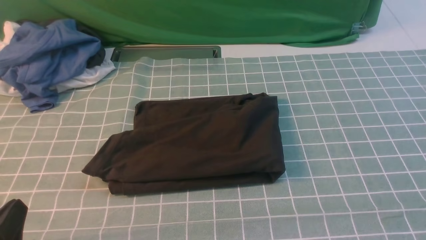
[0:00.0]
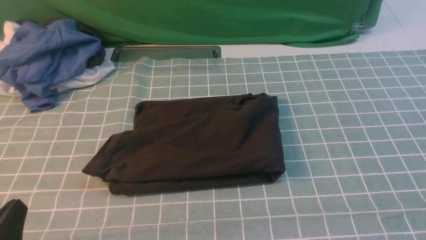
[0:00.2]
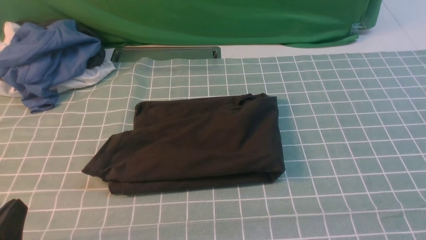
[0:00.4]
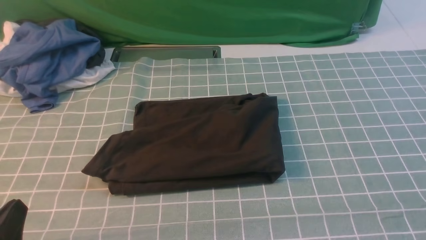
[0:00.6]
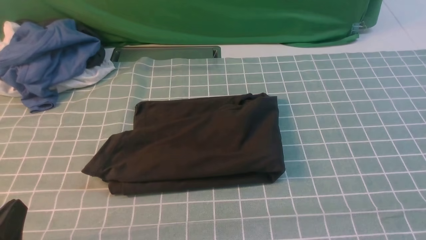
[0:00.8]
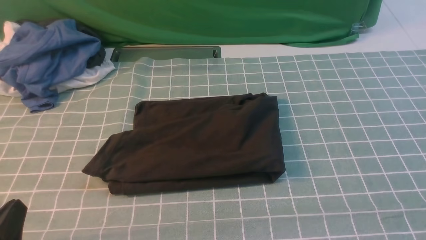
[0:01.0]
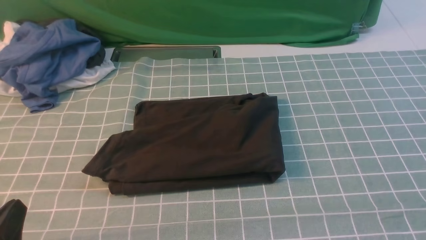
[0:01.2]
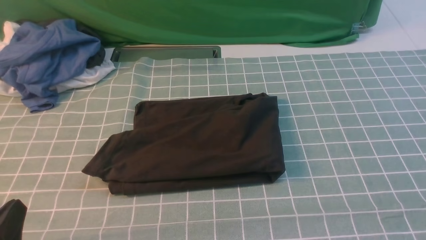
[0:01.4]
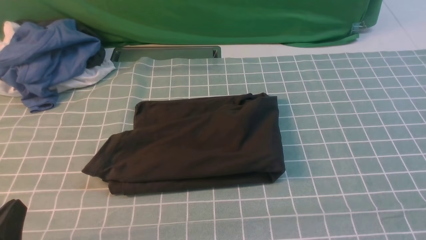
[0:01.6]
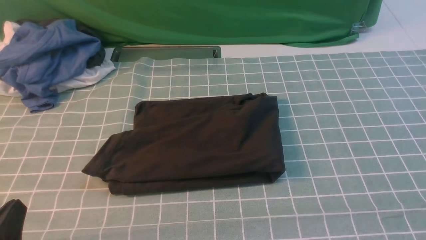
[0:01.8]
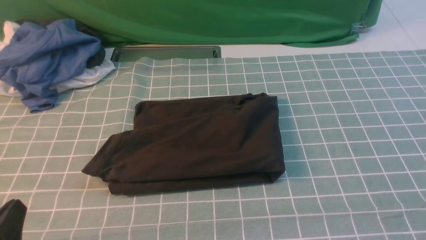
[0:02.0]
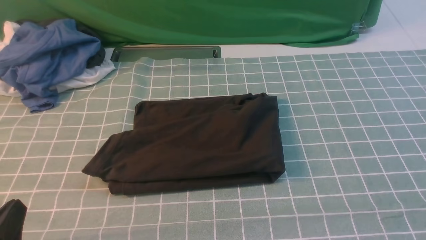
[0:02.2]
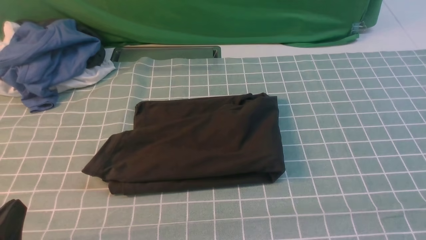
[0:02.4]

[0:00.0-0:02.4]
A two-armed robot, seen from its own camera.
1.2 to 2.4 s: Both grippers stay about where they are.

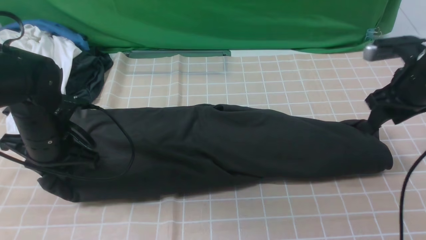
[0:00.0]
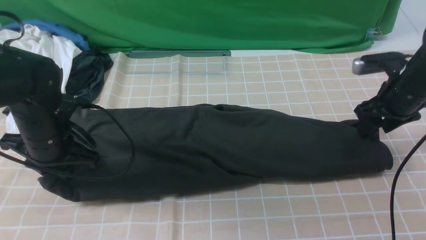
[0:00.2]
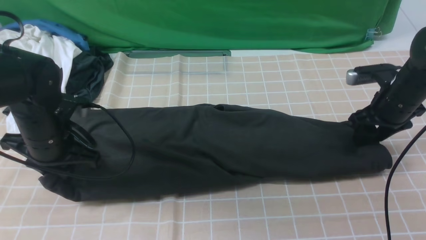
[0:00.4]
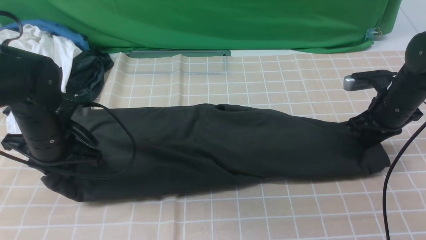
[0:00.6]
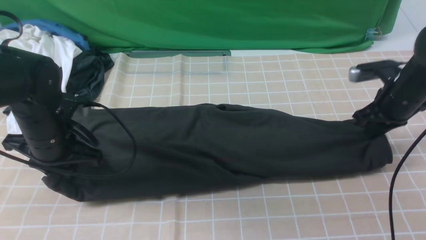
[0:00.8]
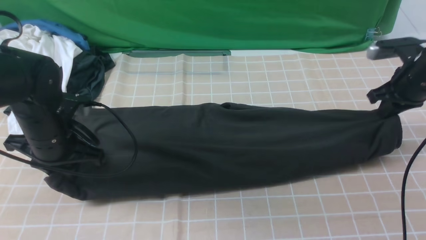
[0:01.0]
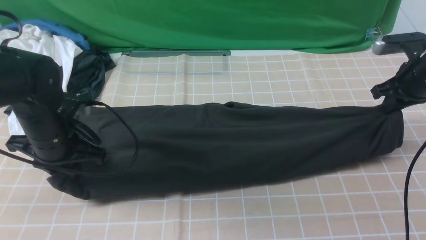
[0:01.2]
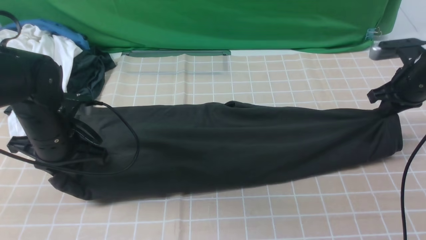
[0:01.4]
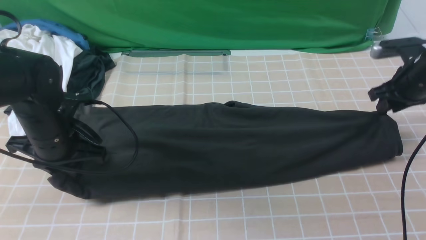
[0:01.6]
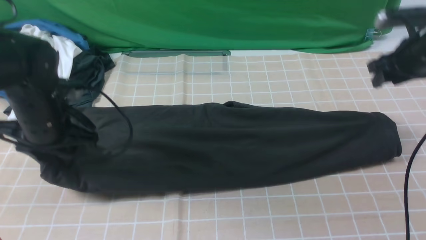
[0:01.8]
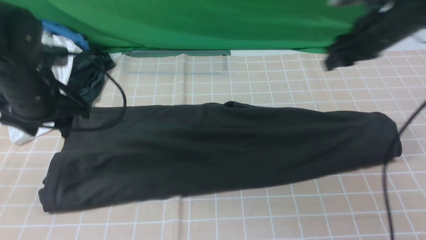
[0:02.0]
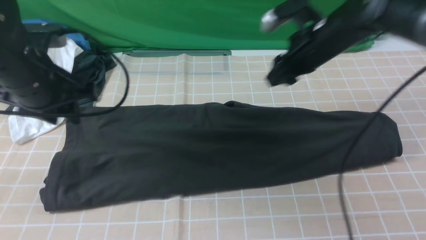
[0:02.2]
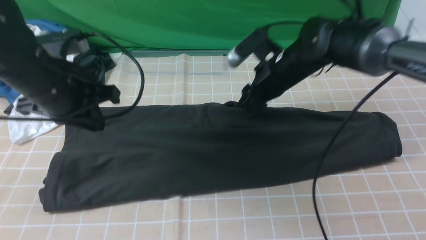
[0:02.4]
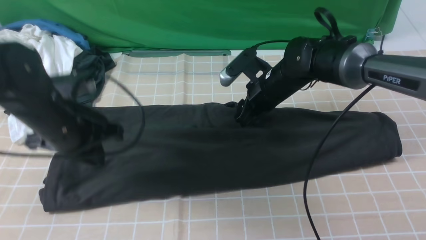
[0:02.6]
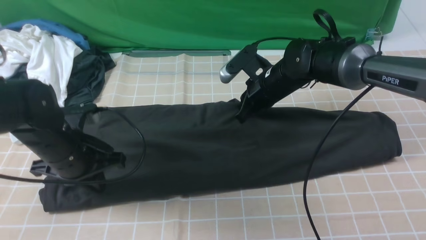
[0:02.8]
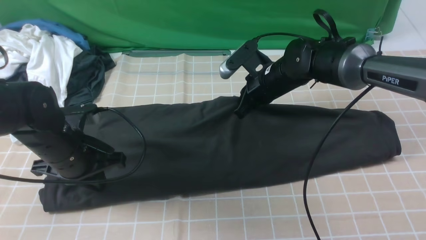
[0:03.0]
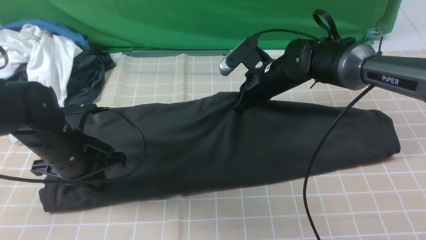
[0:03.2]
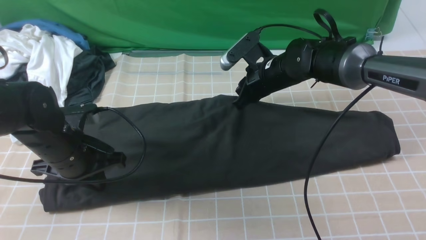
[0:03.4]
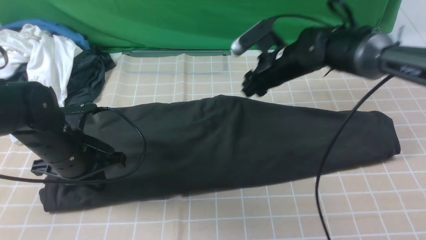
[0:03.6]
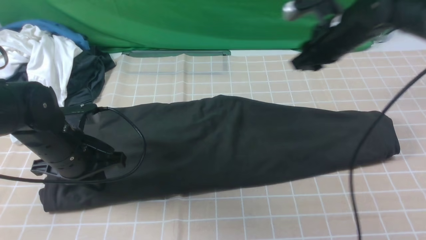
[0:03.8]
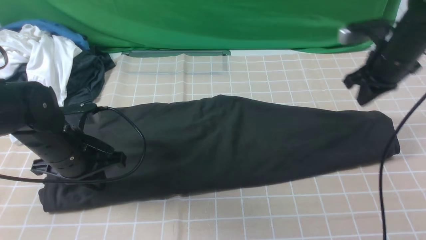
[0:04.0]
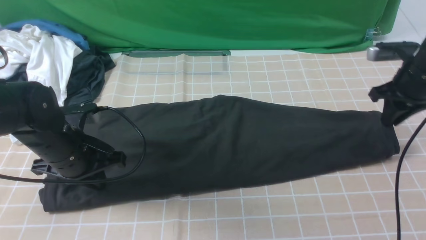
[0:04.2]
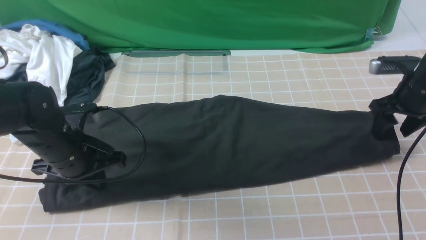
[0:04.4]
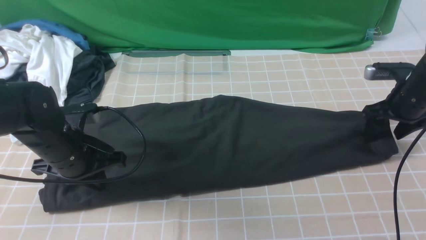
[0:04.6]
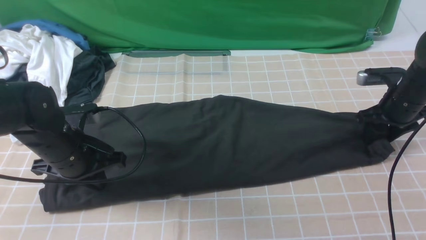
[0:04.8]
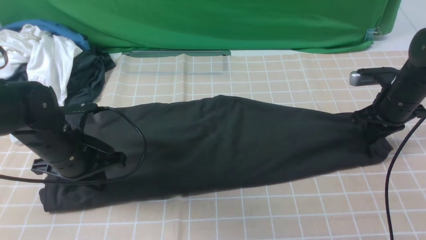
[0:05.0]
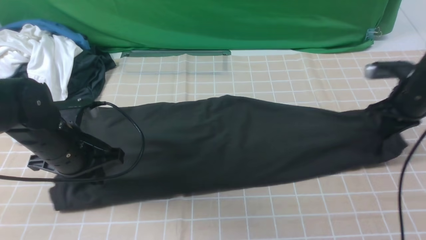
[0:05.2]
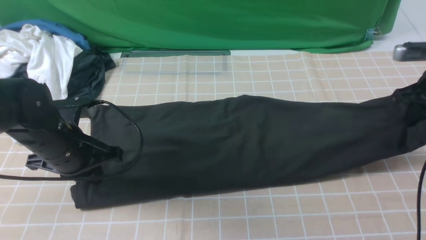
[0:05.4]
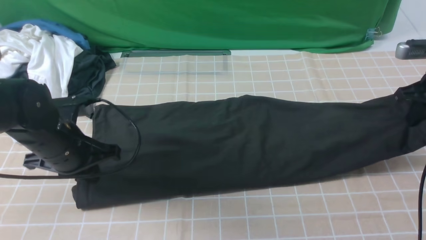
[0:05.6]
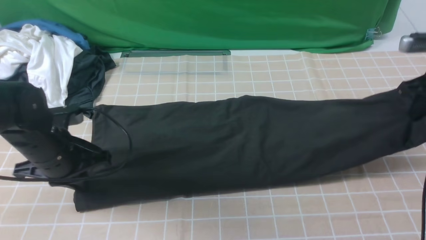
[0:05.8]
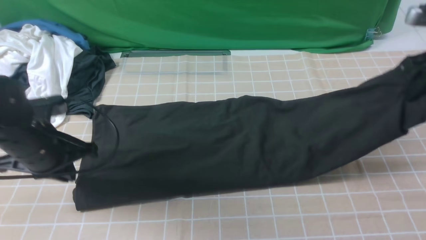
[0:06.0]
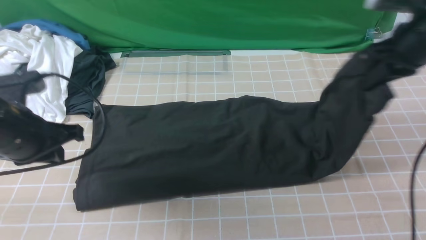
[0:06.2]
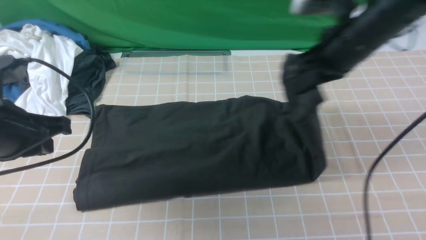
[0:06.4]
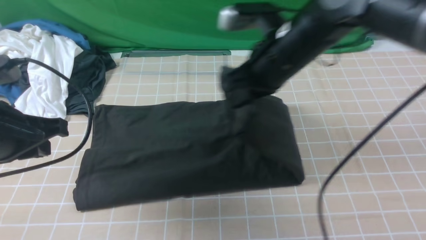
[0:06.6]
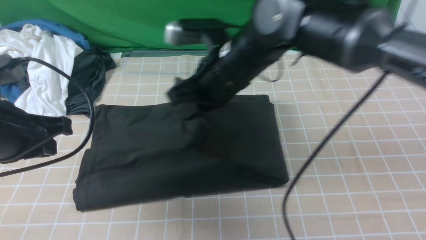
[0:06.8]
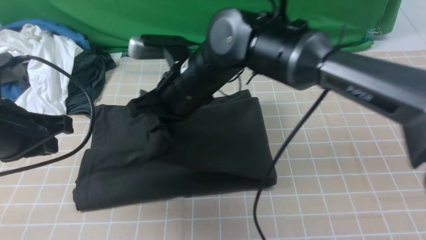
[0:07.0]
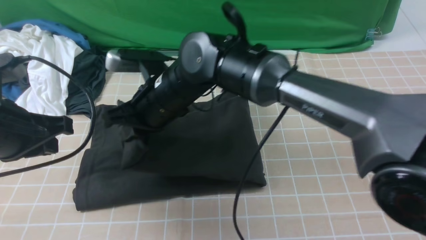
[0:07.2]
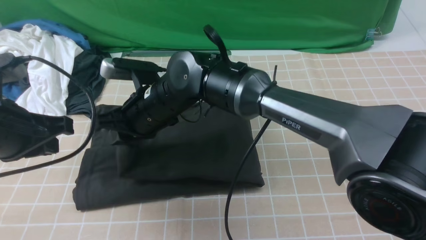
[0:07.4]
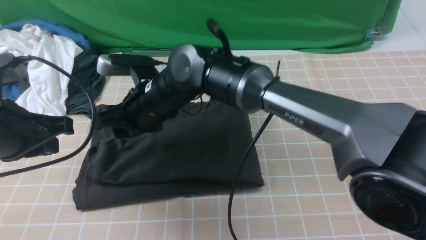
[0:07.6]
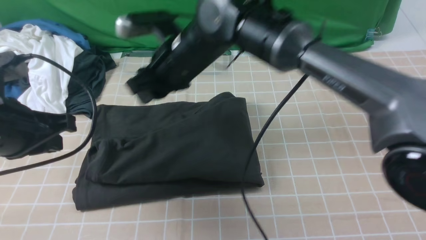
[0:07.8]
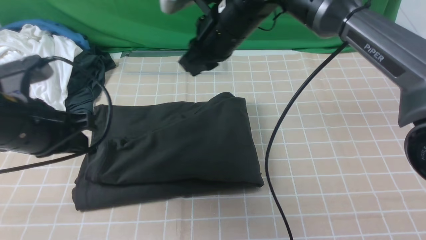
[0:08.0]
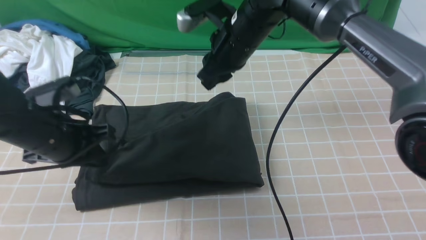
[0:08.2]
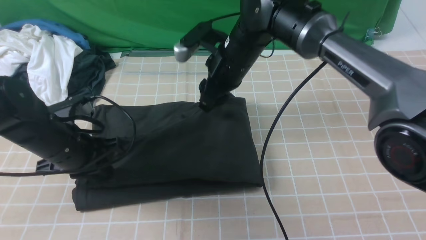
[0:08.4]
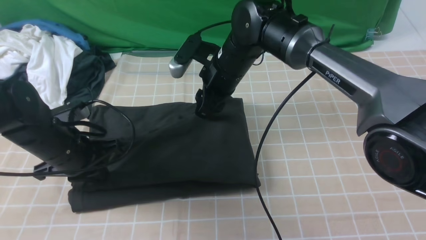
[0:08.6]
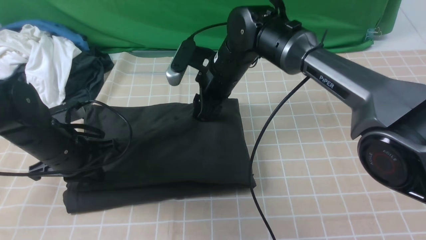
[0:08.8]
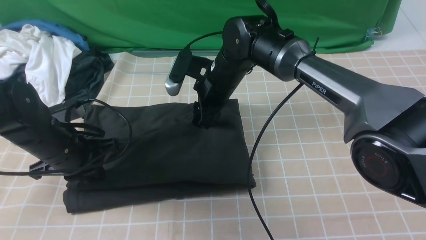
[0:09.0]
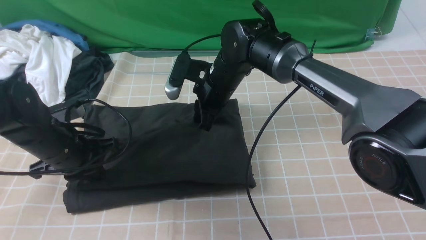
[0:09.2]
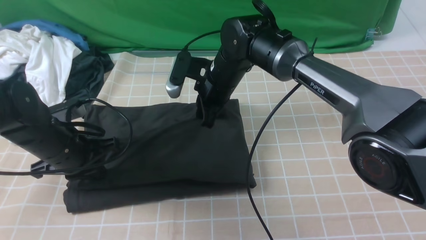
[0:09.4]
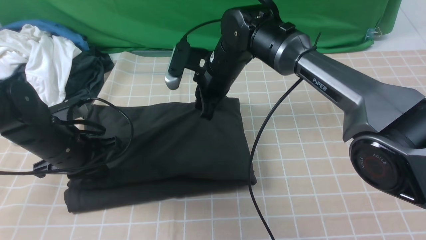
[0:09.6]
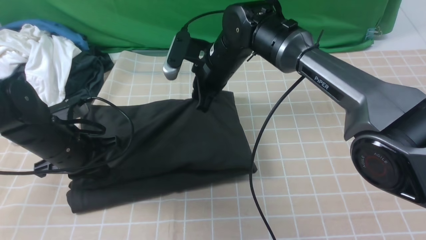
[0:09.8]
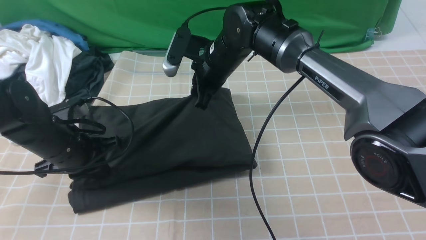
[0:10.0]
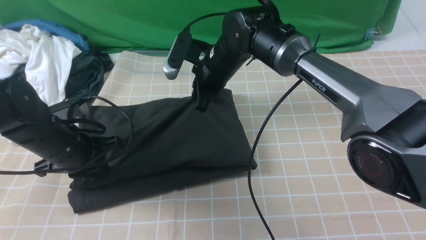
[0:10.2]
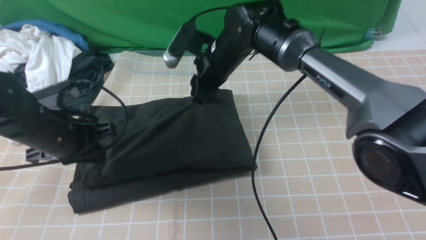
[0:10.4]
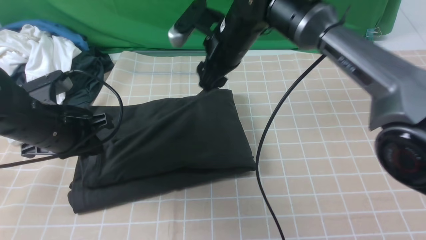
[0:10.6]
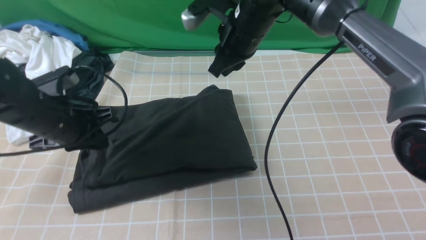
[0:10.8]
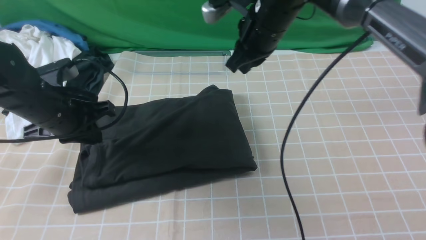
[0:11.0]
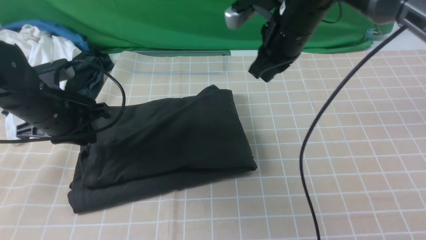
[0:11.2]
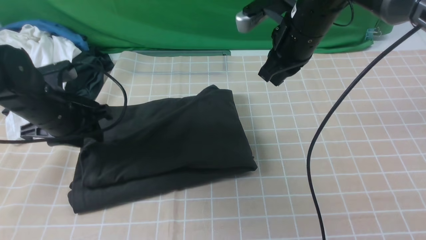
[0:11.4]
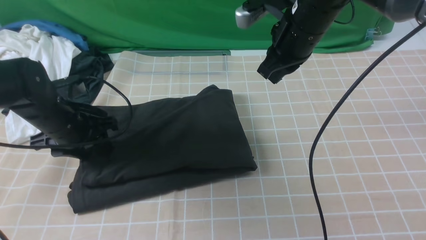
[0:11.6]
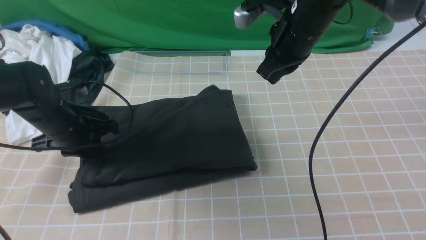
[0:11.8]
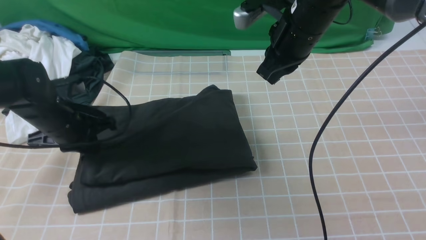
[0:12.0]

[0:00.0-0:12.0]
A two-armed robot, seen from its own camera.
Step, 0.0 to 5.0 s: use the right arm to clamp the right edge of the fabric.
Step, 5.2 to 7.6 s: use the right arm to drag the right edge of the fabric to the left and folds it over the left edge.
0.0 to 1.6 s: The right gripper travels forward by about 5 cm, and closes, then opens again.
1.6 to 3.0 s: The right gripper goes about 25 cm to the left, and closes; the left gripper reaches some 5 cm upward, then returns, and closes its fingers.
3.0 to 4.4 s: The right gripper moves to the right, about 25 cm, and opens its fingers.
4.4 to 6.0 s: The left gripper shifts by approximately 5 cm. Meanwhile the right gripper goes some 10 cm upward, and closes up.
6.0 to 7.6 s: The right gripper goes some 40 cm to the left, and opens up. The left gripper travels upward by approximately 10 cm.
7.6 to 9.0 s: The right gripper heads to the right and forward, covering roughly 10 cm. The left gripper shifts approximately 15 cm downward and forward.
9.0 to 10.4 s: The right gripper closes, then opens again.
10.4 to 12.0 s: The right gripper is displaced to the right and upward by some 10 cm, and closes; the left gripper opens, then closes again.

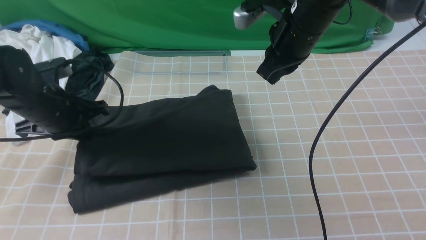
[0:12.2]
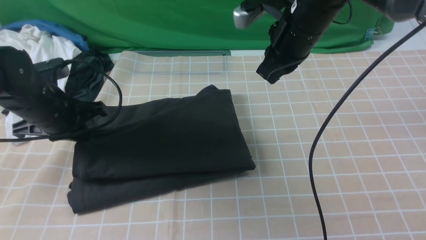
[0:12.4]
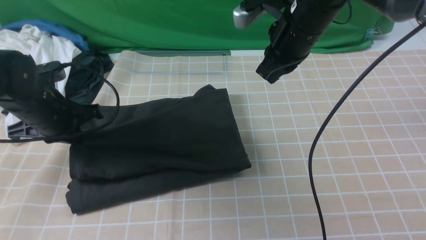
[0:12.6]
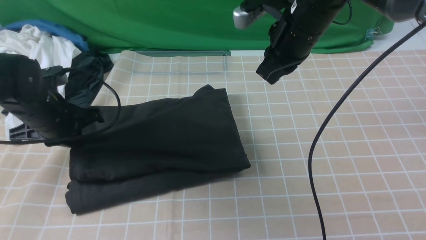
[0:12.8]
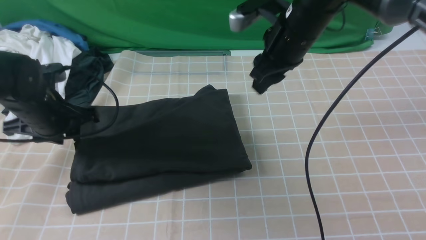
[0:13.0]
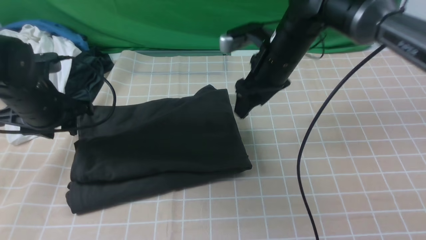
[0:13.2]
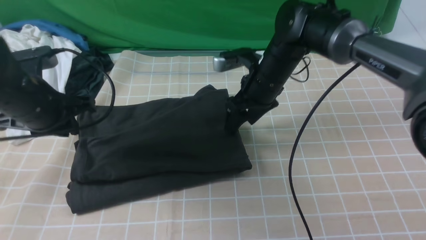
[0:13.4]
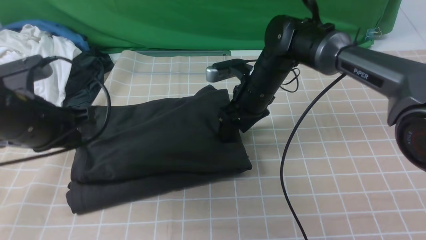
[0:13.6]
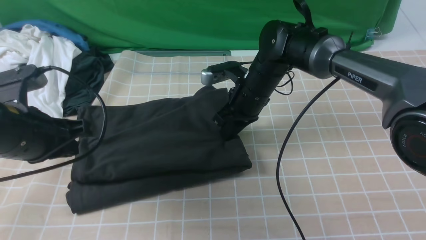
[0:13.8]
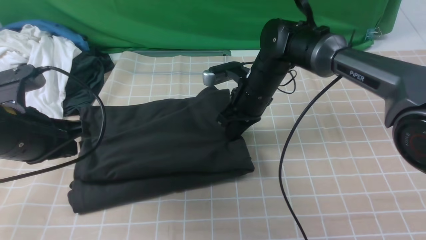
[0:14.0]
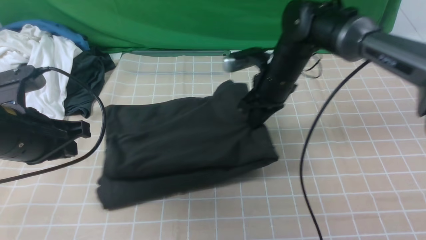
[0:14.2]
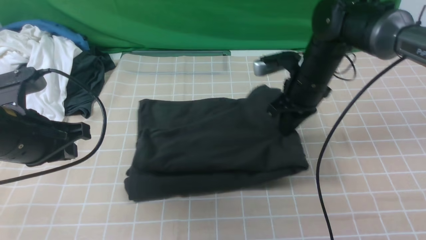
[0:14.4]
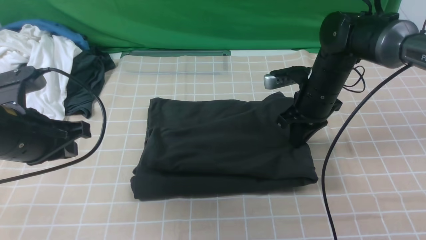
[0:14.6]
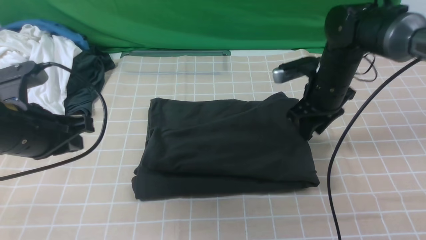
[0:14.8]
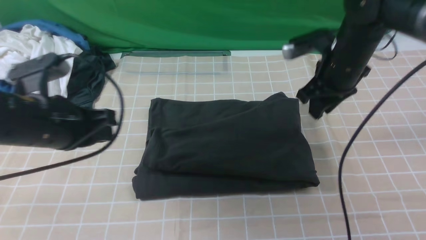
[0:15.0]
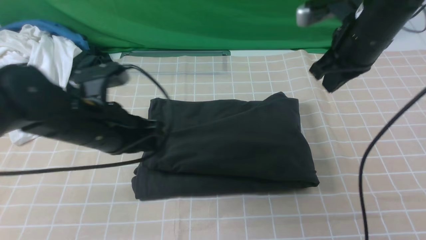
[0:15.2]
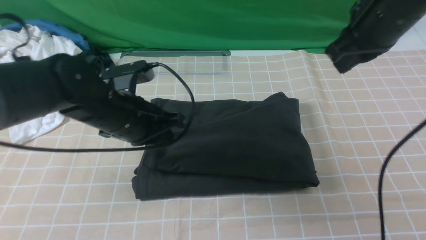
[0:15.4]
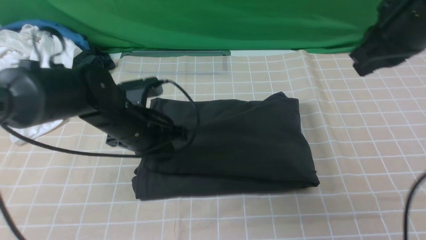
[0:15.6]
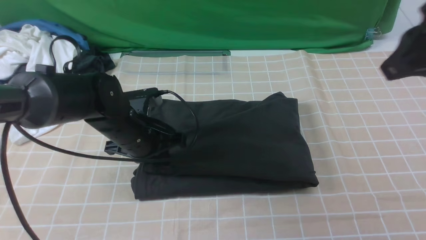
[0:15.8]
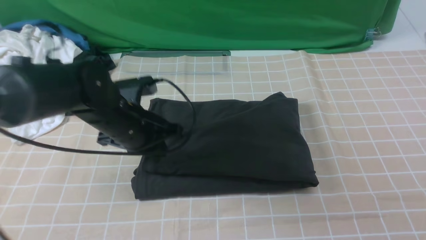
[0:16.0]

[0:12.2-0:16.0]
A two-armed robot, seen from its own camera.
12.2 to 13.4 s: The left gripper changes place by approximately 5 cm. Meanwhile the right gripper goes approximately 10 cm downward, and opens.
13.4 to 14.8 s: The right gripper heads to the right, covering approximately 10 cm, and closes its fingers, while the left gripper travels backward by approximately 5 cm.
14.8 to 16.0 s: The left gripper heads to the right and forward, covering roughly 10 cm. The right gripper is displaced backward and upward by some 30 cm, and closes its fingers.
